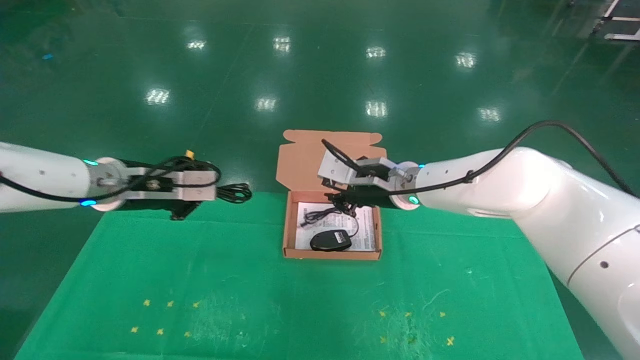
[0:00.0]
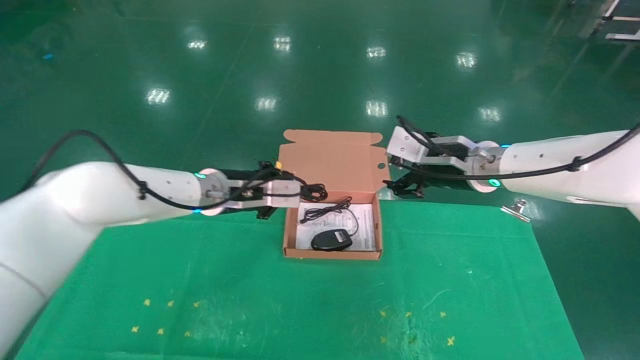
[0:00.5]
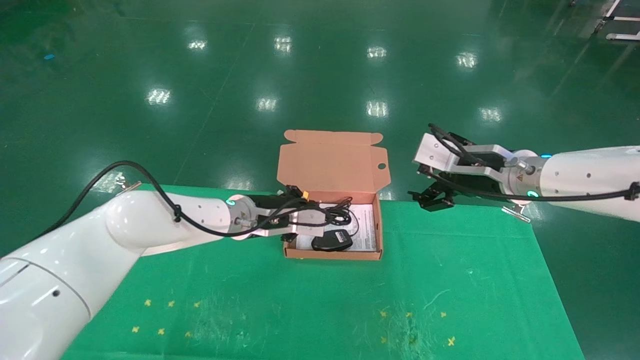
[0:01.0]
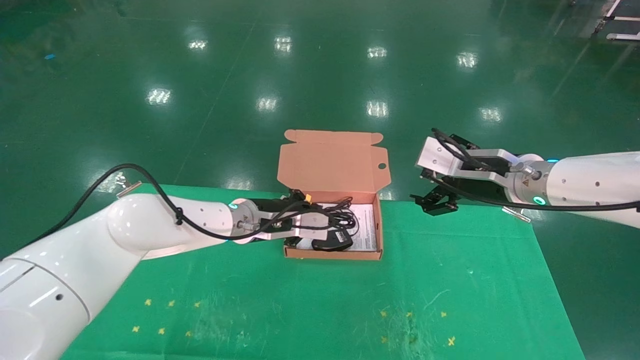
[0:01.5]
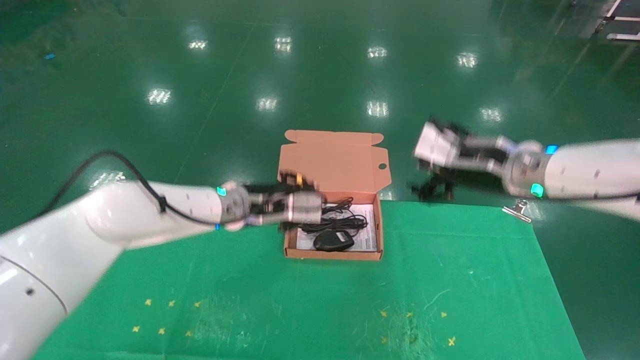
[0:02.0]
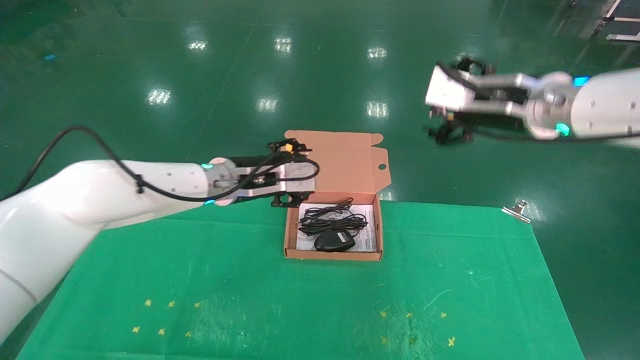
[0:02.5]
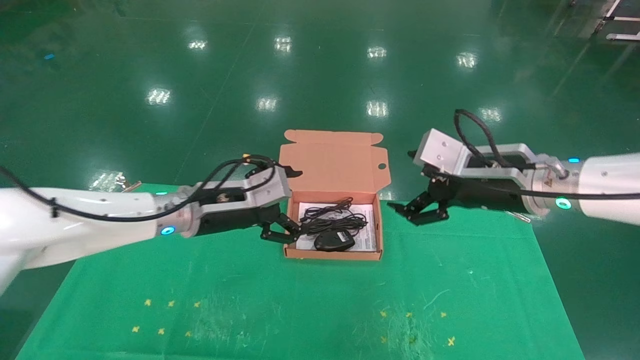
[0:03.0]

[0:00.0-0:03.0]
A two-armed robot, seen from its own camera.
Task of the whole recording: grasp data cable left put into box grasp mouse right put into box.
0:00.0 to 0:01.5: The right gripper is displaced to the right and backward by roughly 10 cm, and opens, while the left gripper is displaced to the right and downward by some 15 cm.
0:01.5 to 0:03.0: The left gripper heads backward and to the left, covering some 10 cm, and opens. The right gripper is displaced backward by about 5 cm.
